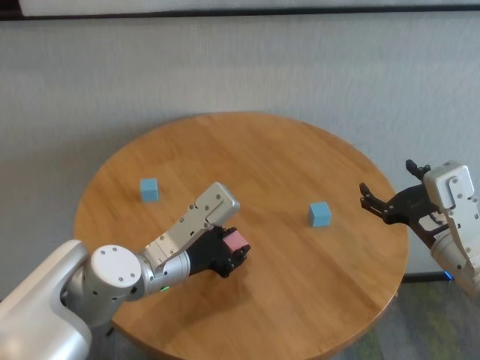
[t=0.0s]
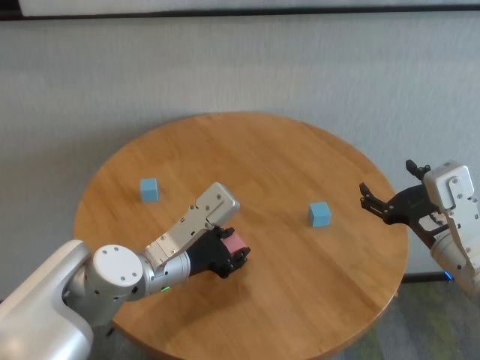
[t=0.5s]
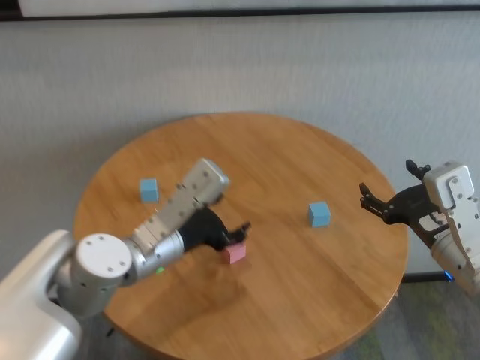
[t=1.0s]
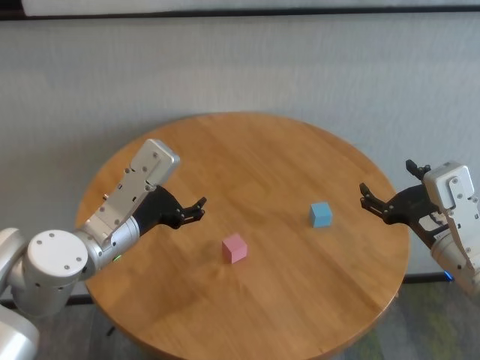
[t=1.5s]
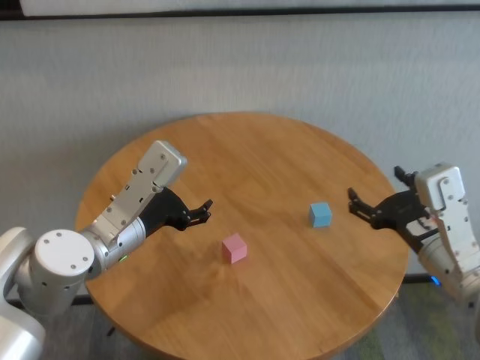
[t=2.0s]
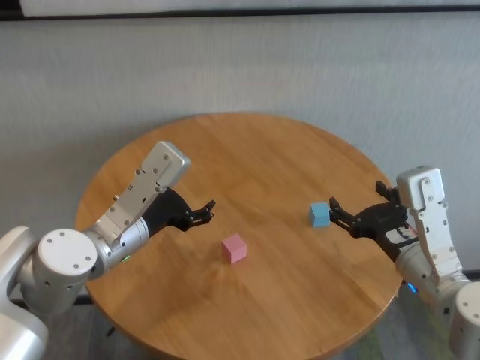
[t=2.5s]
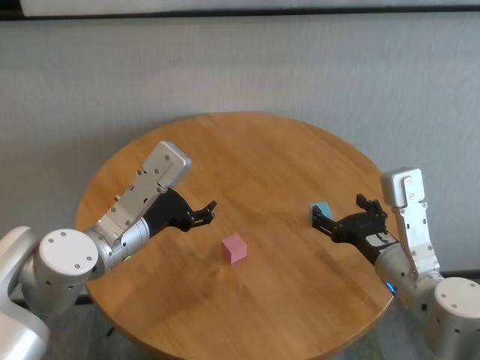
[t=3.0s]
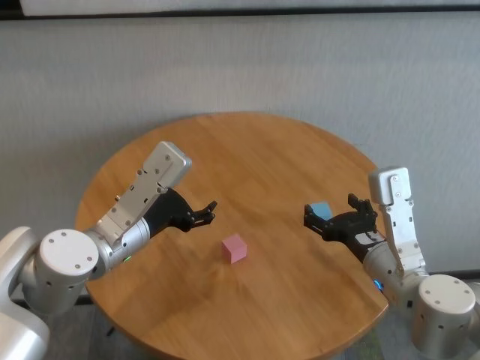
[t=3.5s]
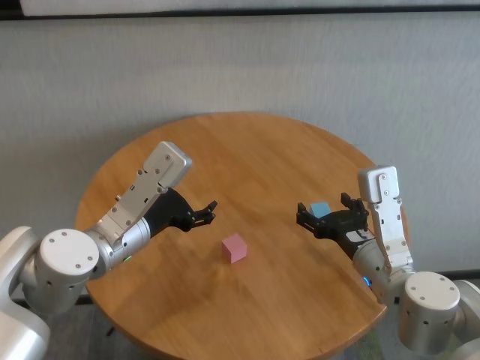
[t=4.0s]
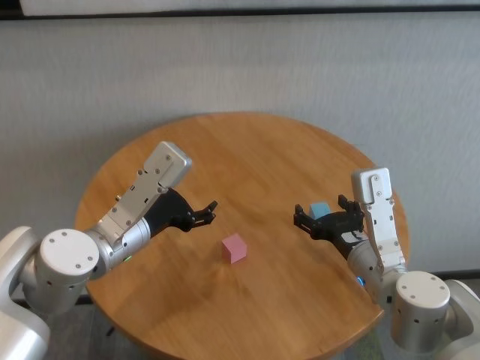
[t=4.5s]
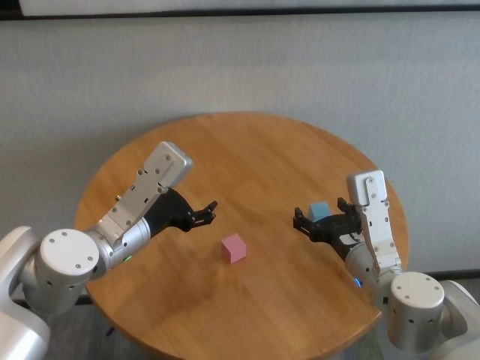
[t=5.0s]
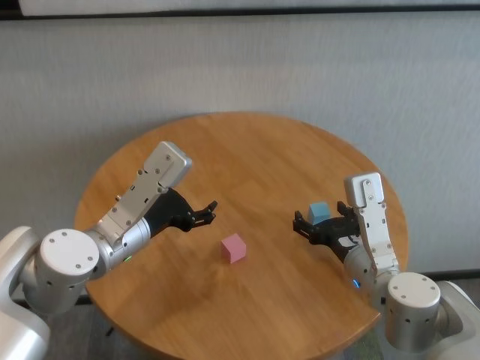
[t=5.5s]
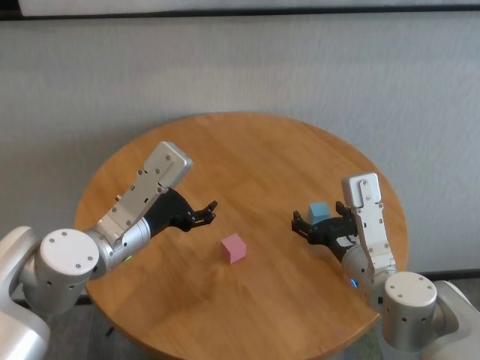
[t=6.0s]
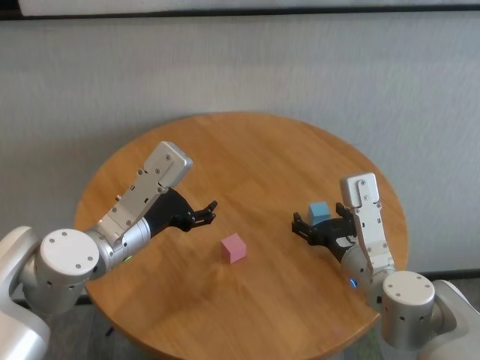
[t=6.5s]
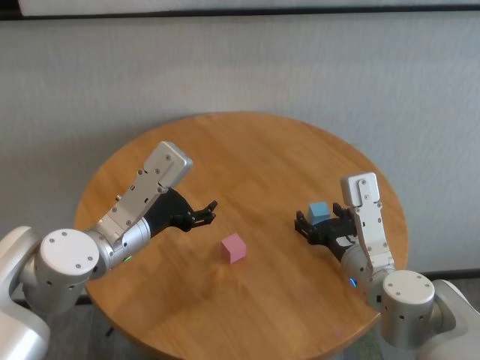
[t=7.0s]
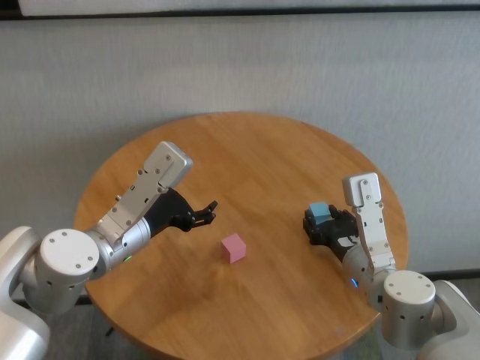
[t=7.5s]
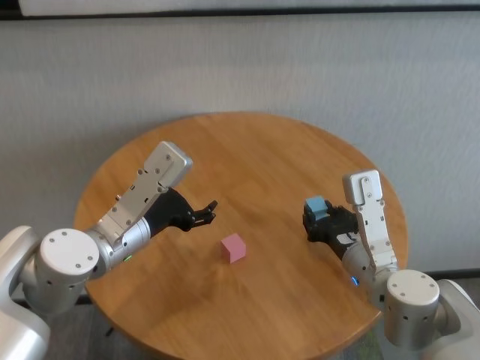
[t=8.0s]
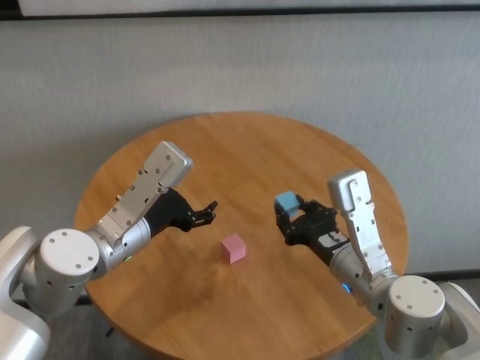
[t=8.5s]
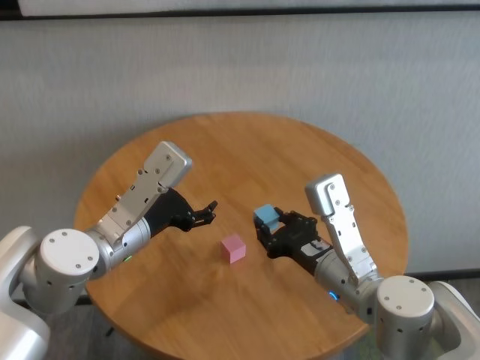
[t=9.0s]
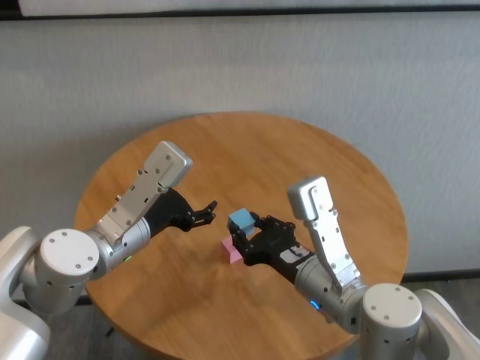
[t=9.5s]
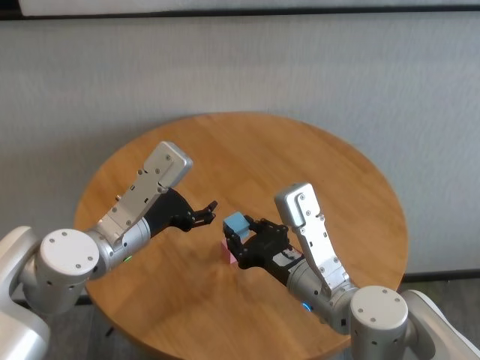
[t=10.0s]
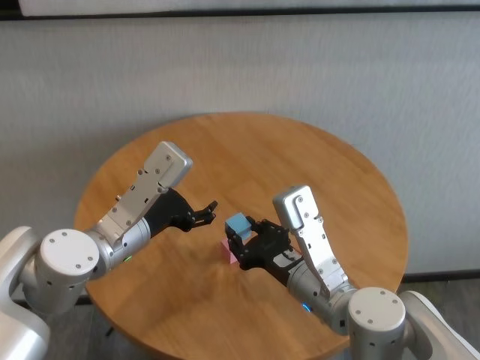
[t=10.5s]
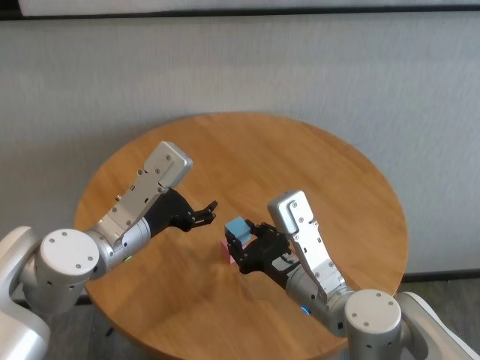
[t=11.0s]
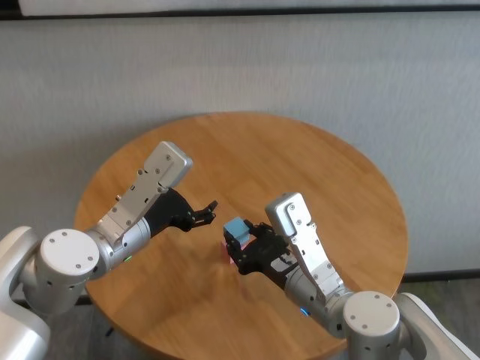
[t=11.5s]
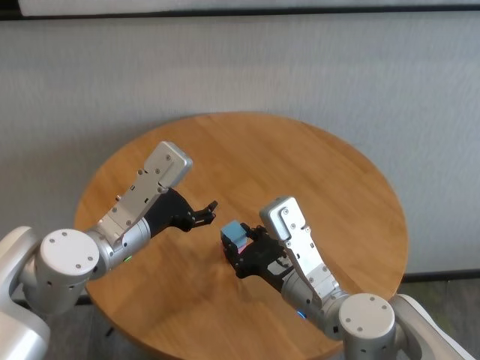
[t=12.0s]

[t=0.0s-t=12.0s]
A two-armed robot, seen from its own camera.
Task of the whole recording: stack building blocks on the table.
Step, t=1.0s to t=7.5s: Grasp the blue building block with right gripper.

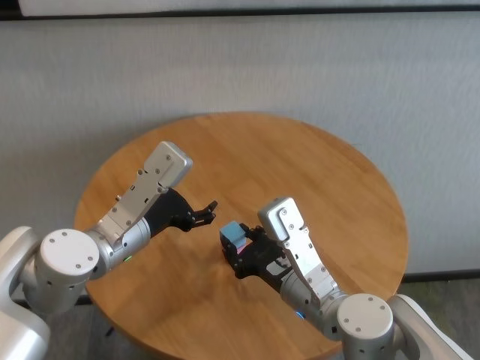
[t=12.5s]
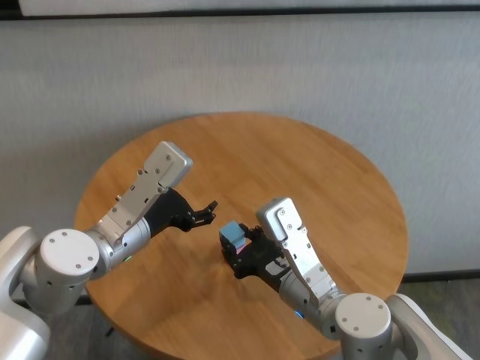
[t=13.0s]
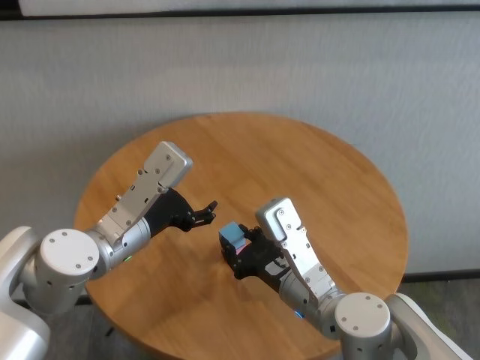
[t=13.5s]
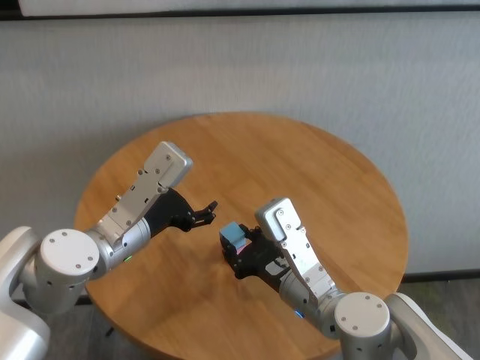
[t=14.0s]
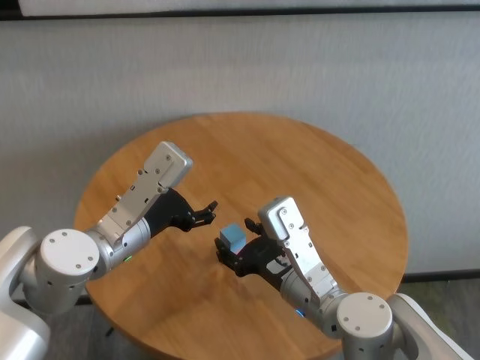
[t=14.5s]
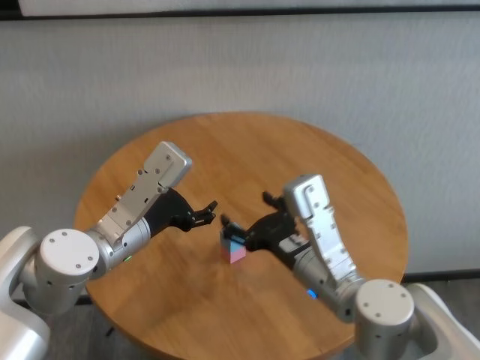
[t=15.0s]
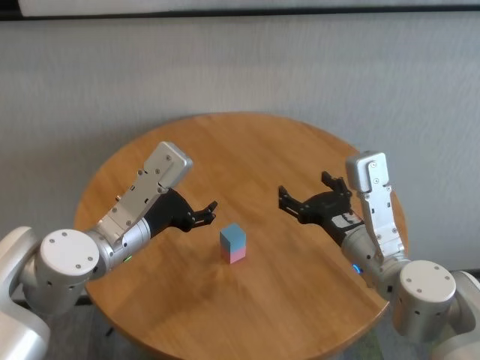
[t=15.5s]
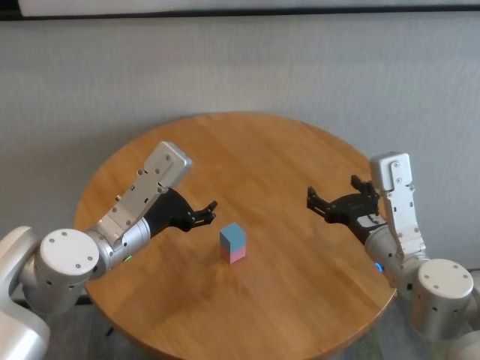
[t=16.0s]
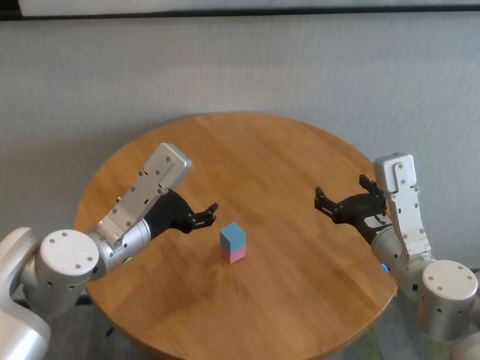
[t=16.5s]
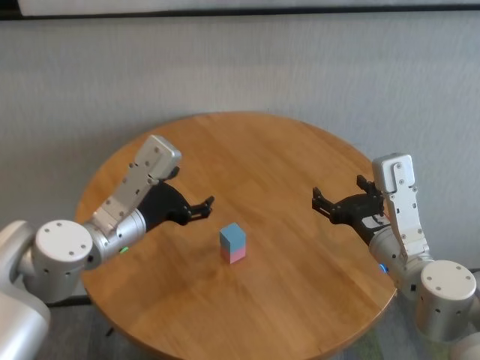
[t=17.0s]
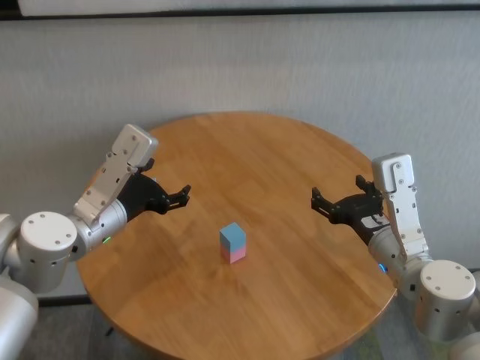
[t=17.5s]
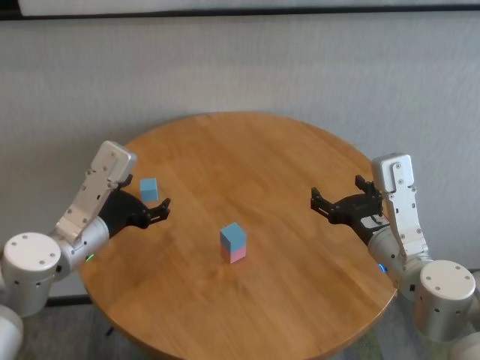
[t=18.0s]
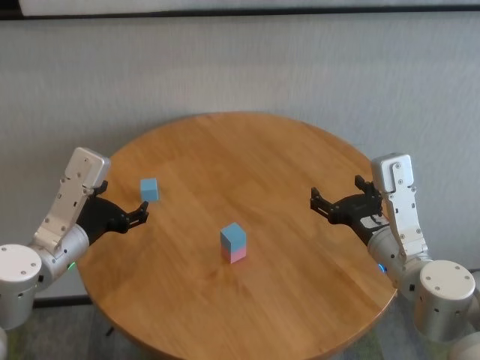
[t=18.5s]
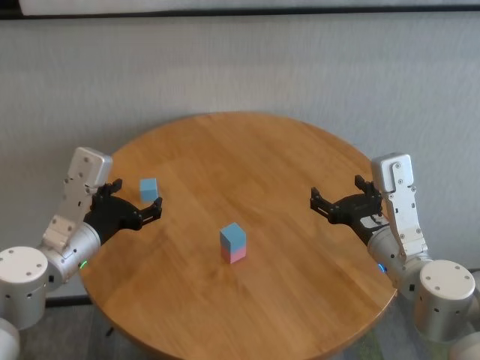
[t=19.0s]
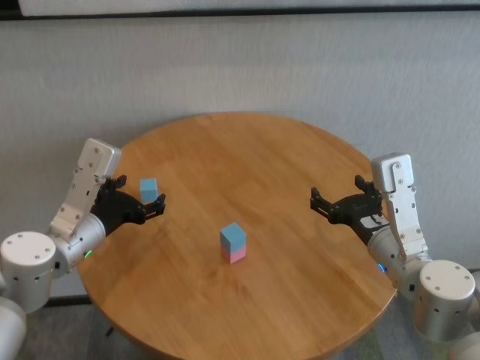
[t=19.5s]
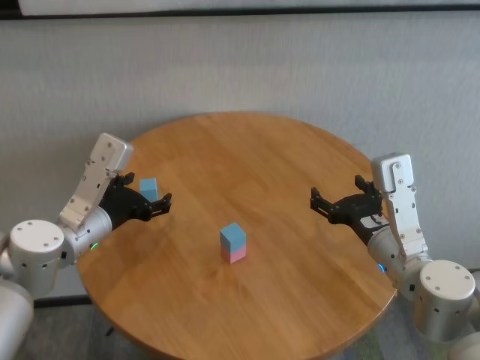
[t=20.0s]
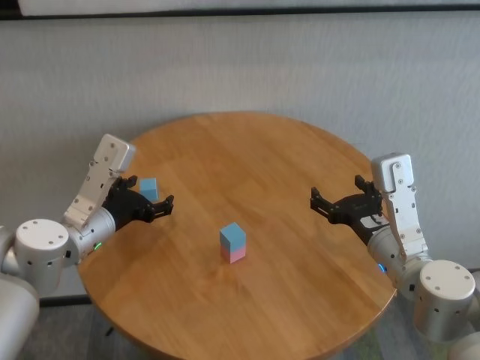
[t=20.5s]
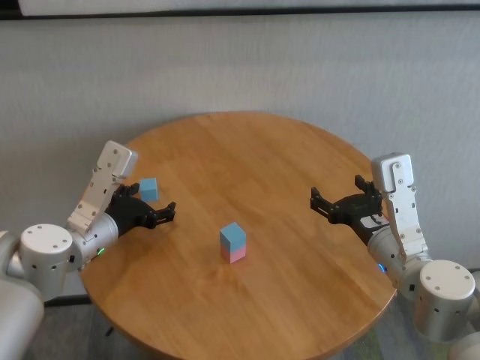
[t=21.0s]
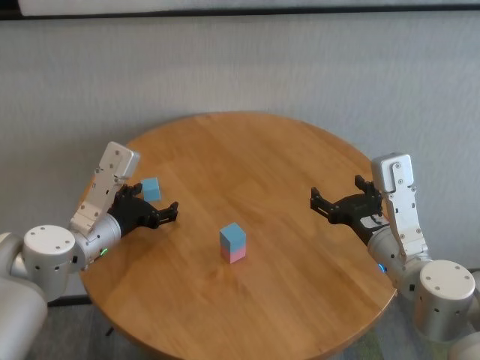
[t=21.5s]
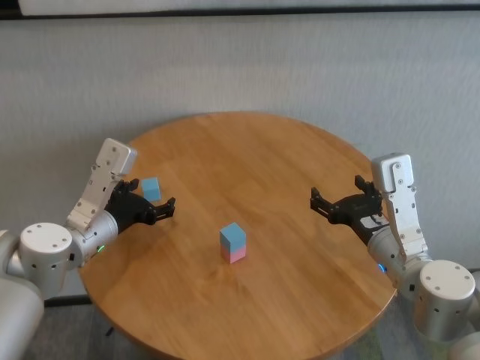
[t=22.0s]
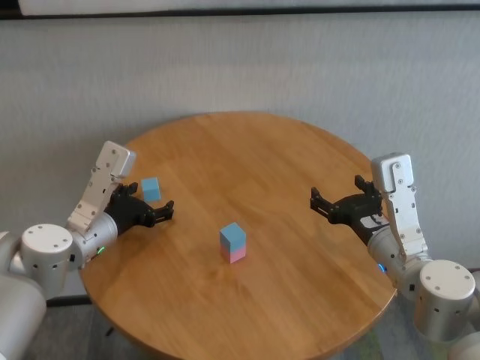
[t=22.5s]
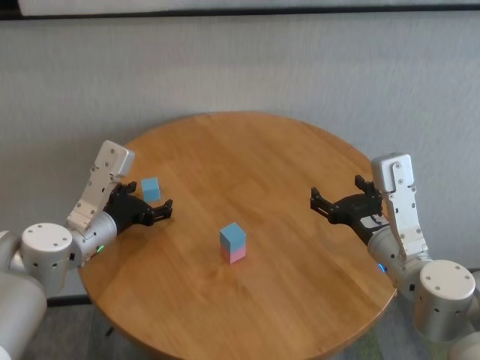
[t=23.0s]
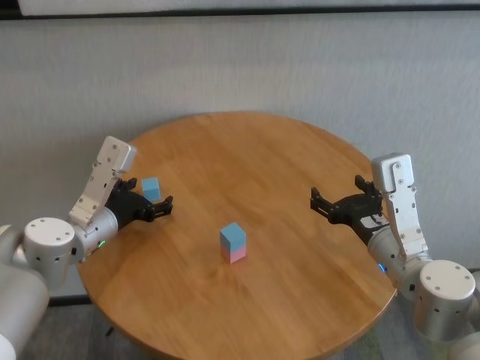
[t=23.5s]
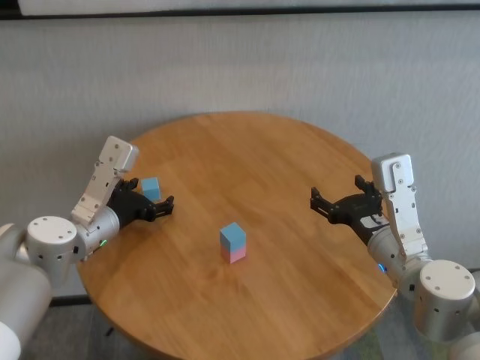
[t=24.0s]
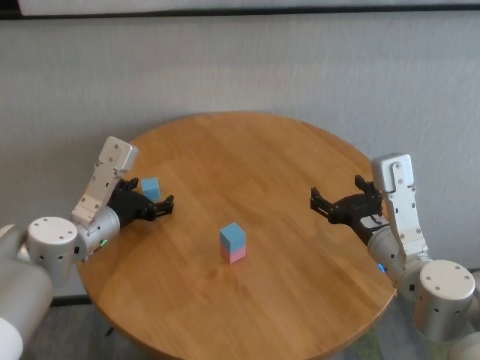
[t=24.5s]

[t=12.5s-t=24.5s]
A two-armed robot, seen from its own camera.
Task of the whole recording: stack building blocks on the table.
Step, t=12.5s to t=14.5s: Place the blue building block on the pink building blocks with right gripper.

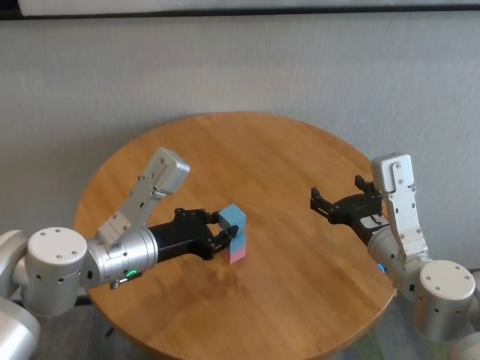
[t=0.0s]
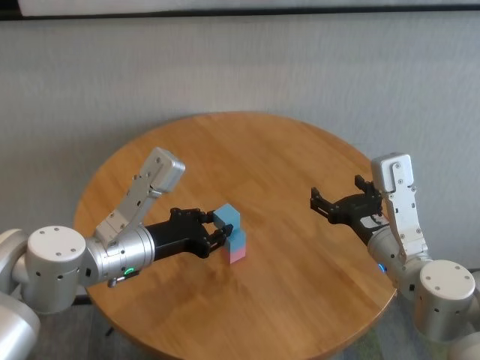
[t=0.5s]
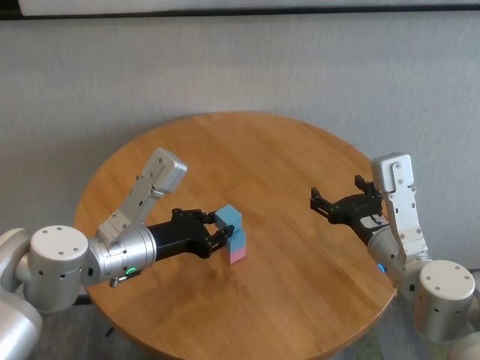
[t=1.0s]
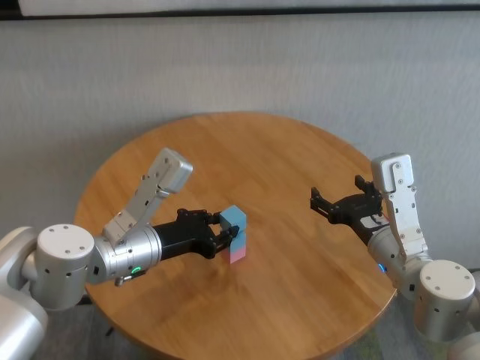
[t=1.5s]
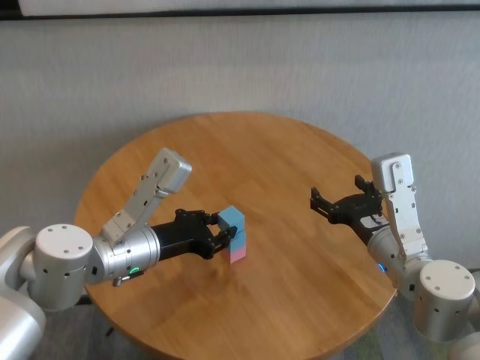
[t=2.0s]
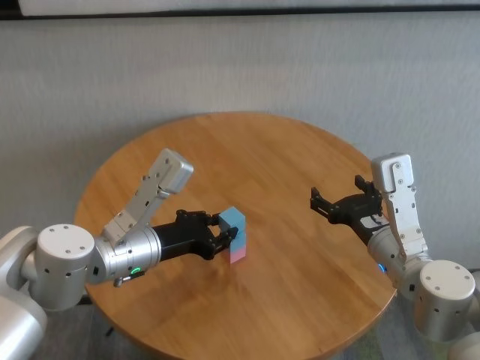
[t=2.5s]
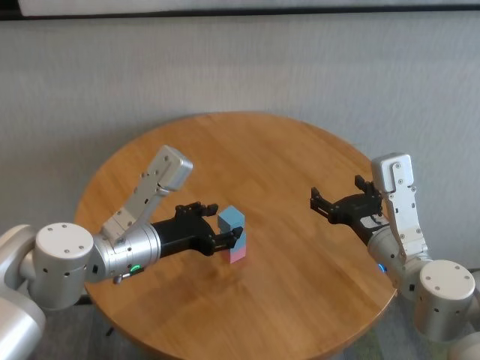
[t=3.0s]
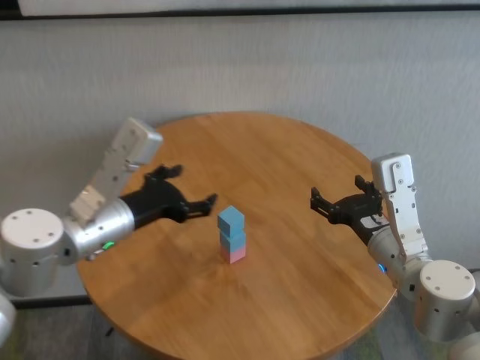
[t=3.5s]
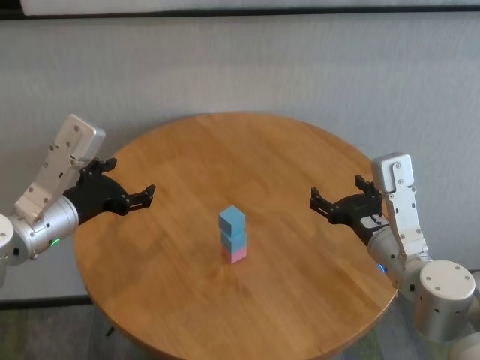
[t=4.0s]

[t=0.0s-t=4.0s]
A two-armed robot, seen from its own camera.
Task of the whole recording: stack building blocks on the table.
Step, t=0.0s to t=2.5s: Place the blue building block on the blue building blocks with left gripper.
